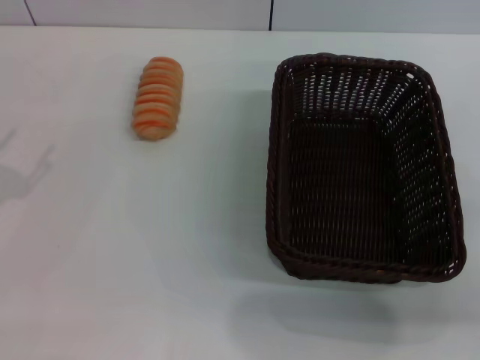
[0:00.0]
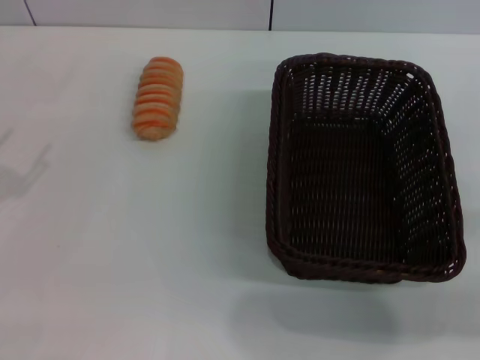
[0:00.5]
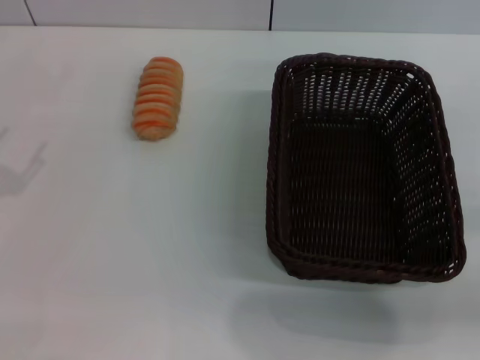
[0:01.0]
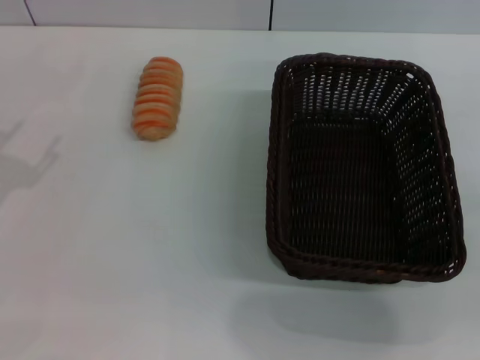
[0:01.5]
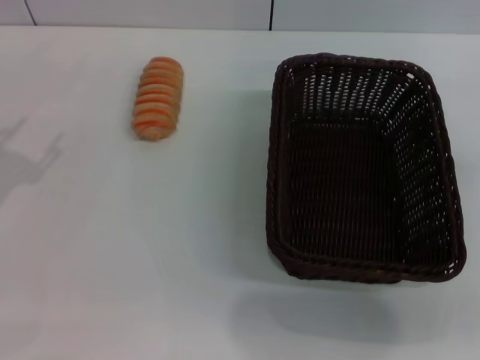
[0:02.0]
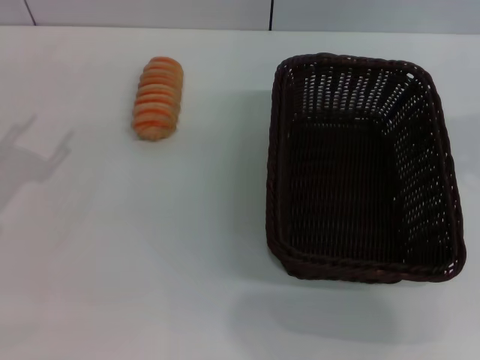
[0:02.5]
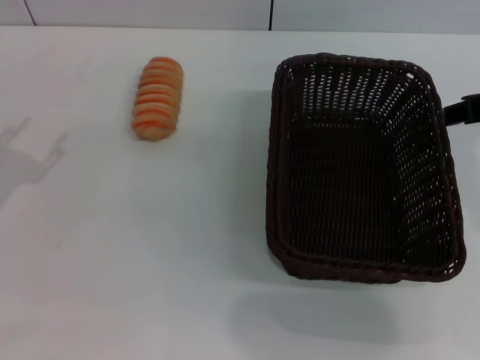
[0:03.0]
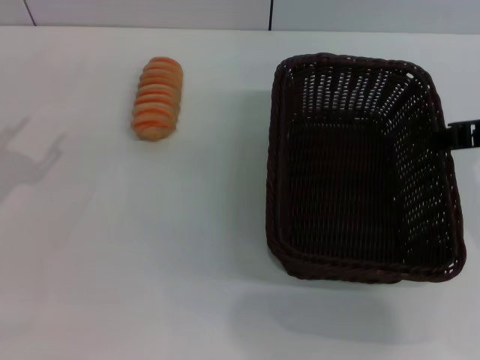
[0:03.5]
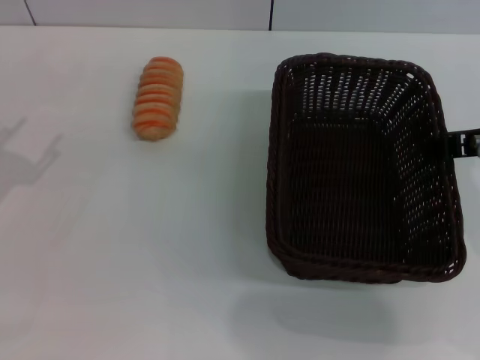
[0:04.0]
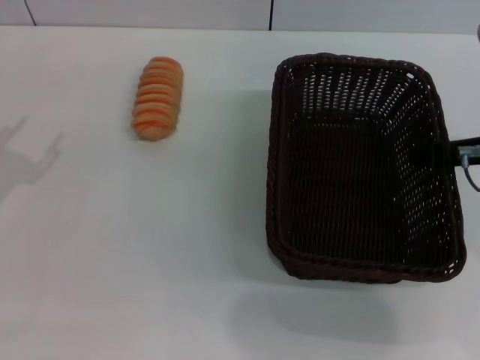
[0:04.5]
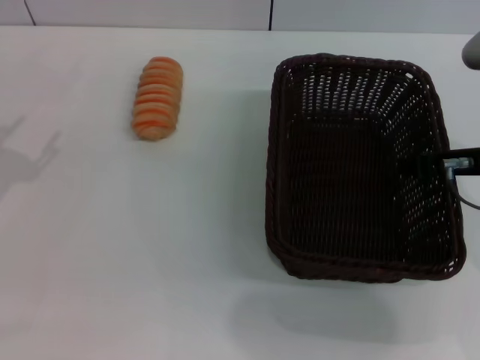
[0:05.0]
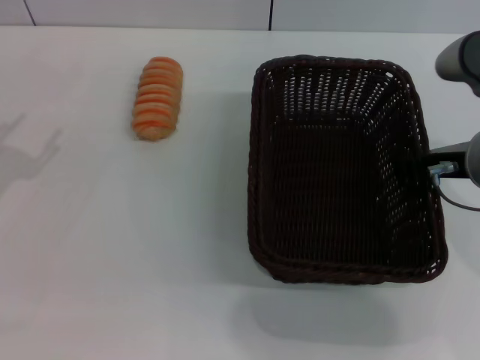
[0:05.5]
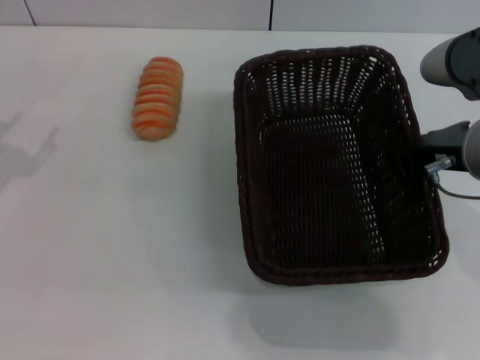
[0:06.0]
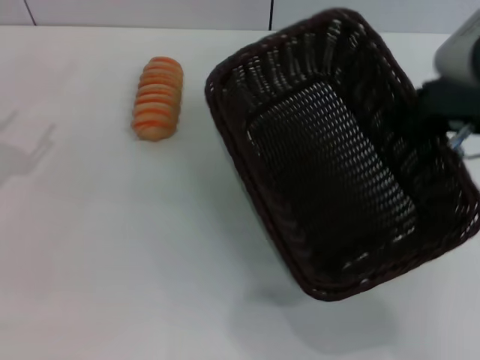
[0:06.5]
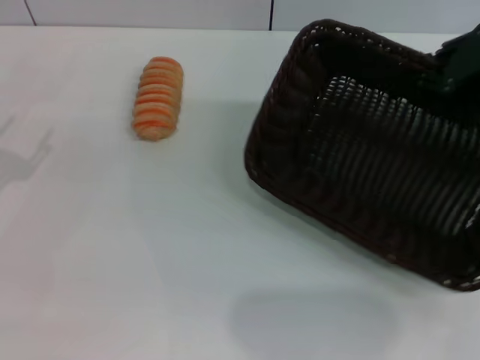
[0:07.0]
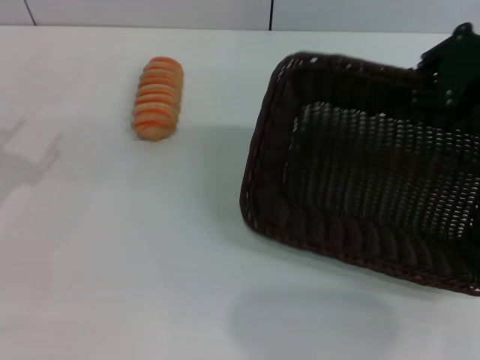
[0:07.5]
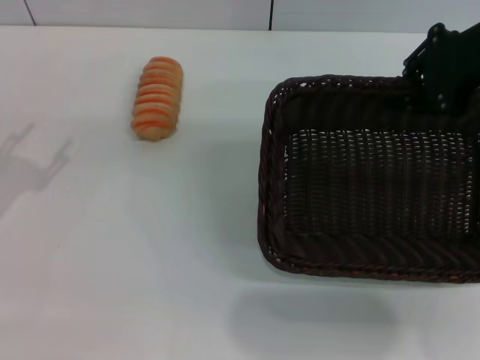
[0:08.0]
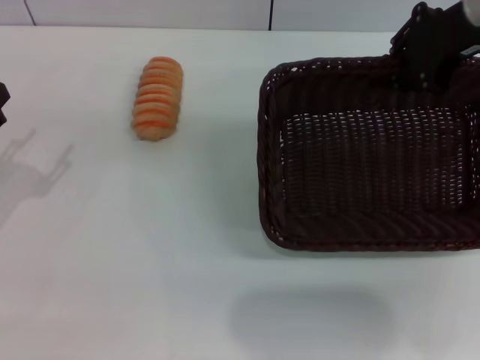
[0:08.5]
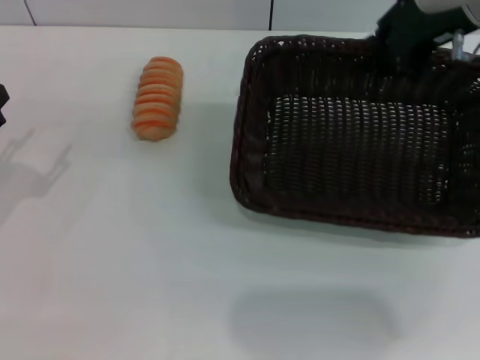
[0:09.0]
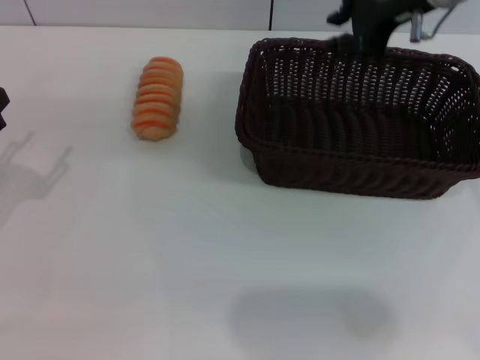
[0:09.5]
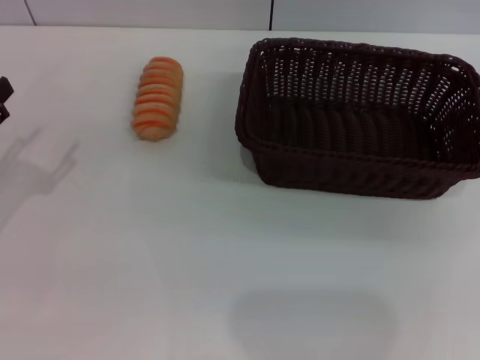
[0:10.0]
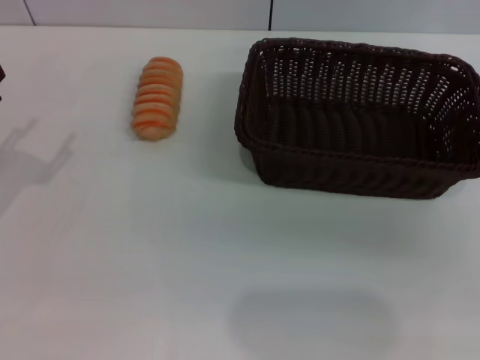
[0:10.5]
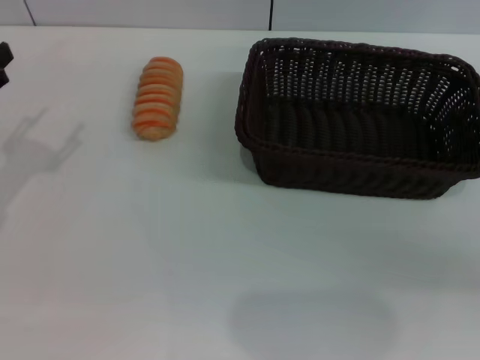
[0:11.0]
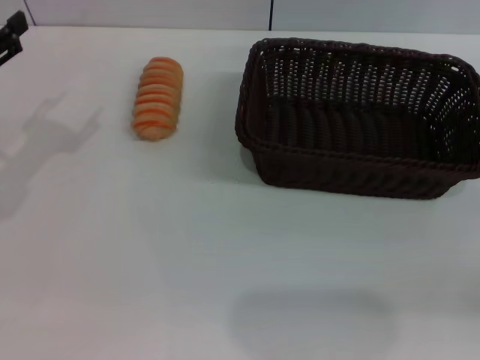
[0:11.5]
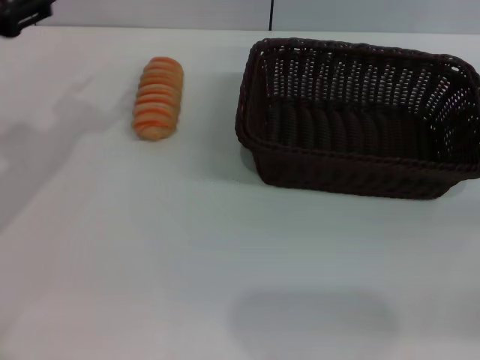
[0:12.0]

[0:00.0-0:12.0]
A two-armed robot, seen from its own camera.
Step, 0:00.0 to 0:06.0: Pick up the dark basket with the right gripper.
Step, 0:06.5 to 0:09.0: Place the dark basket in the center of view with the right gripper.
0:02.0 to 0:04.0: The right gripper shifts some 15 cm to the left.
0:04.0 to 0:06.0: The right gripper closes up.
0:06.0 to 0:08.0: The right gripper heads forward and upward, covering approximately 10 cm.
0:08.0 to 0:10.0: The right gripper shifts some 10 cm upward, and moves approximately 10 cm to the left and comes back.
0:10.0 to 0:12.0: The right gripper is displaced backward, to the right and downward by roughly 30 cm. The left gripper travels upward, forward and to the right by some 15 cm.

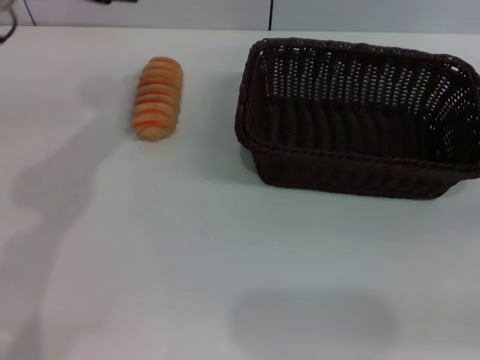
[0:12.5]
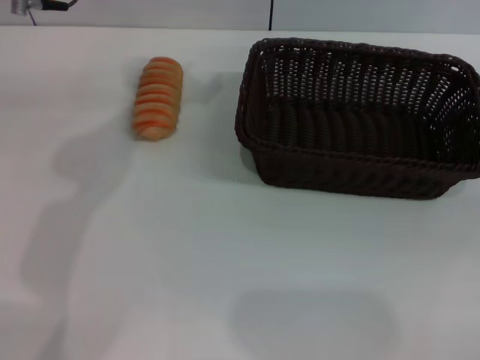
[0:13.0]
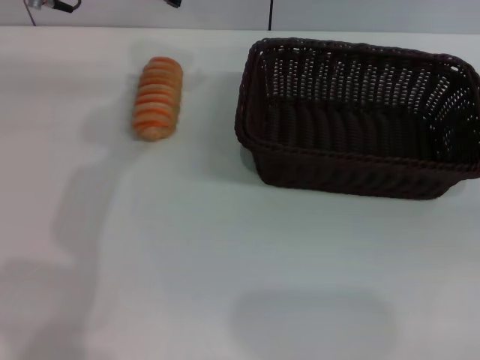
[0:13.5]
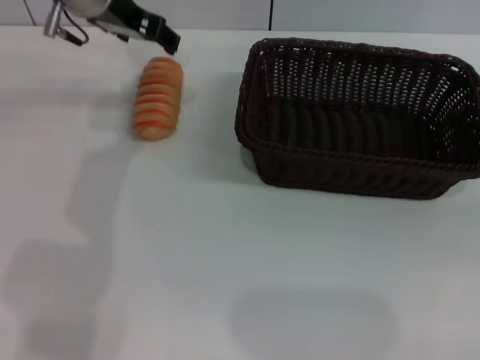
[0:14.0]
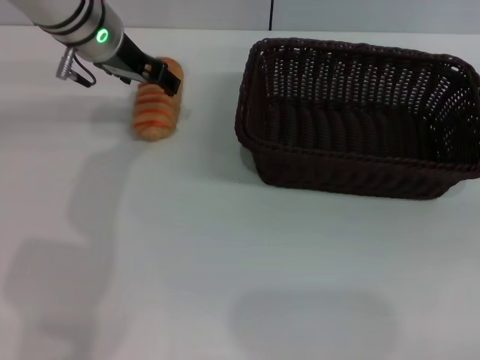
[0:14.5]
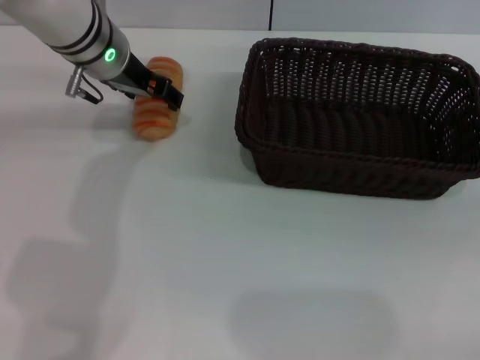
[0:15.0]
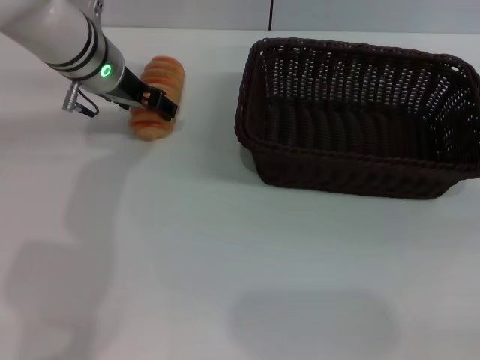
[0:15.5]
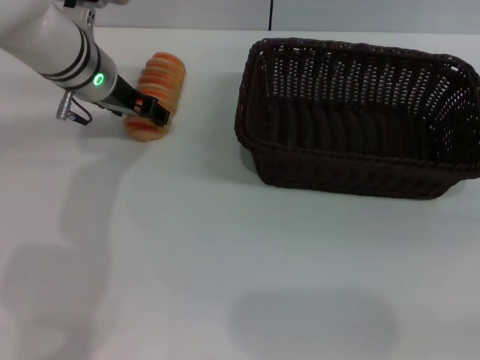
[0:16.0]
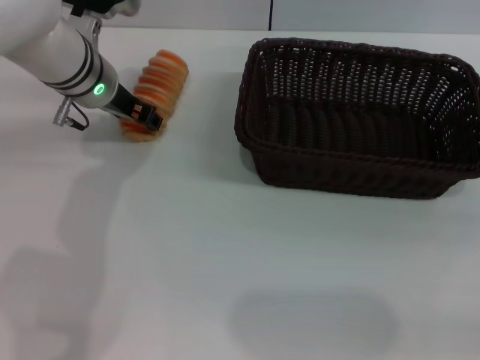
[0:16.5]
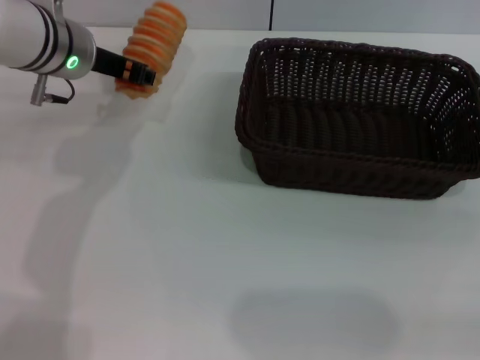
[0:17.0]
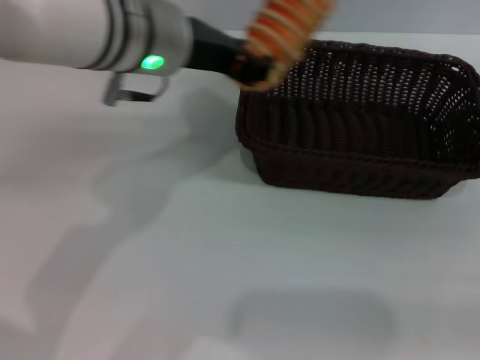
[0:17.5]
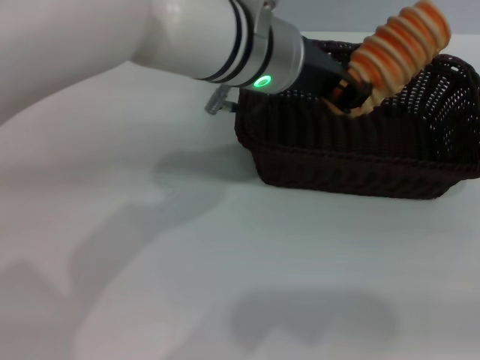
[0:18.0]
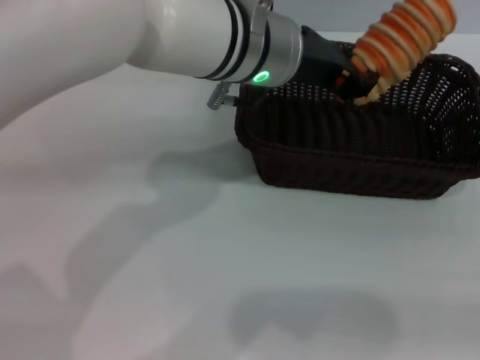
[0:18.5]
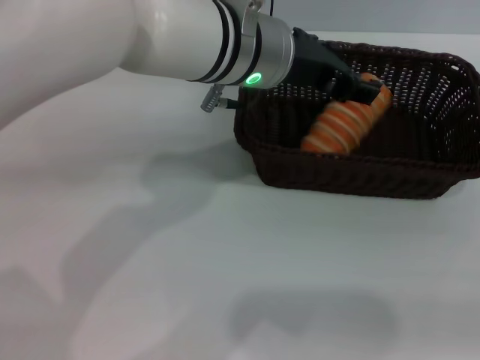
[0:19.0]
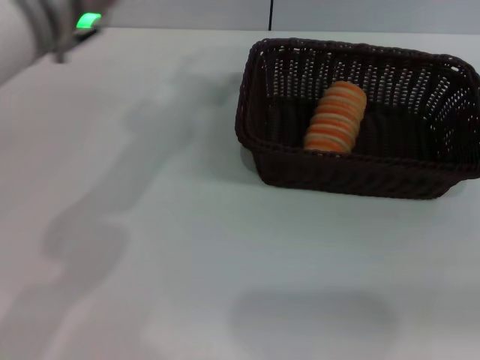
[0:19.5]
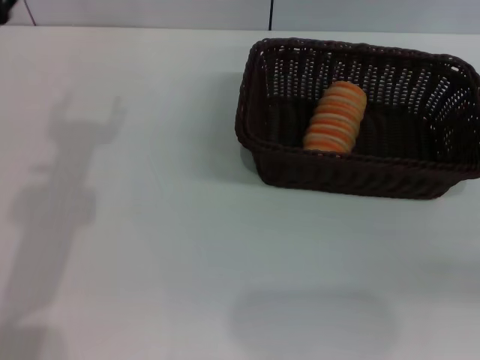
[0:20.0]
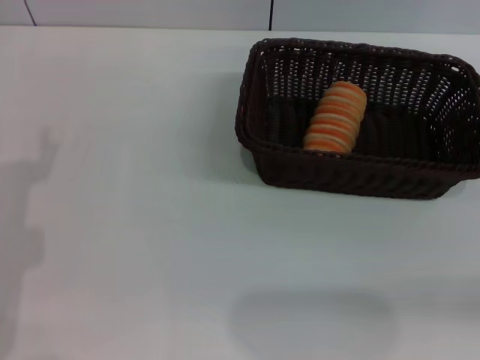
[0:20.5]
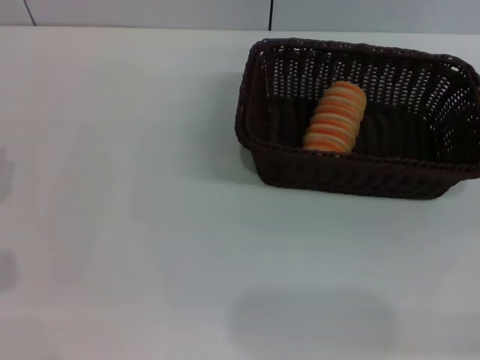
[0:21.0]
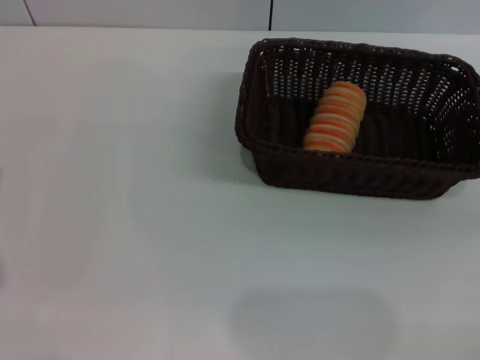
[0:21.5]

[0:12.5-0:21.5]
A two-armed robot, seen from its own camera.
Step, 0:12.5 to 0:16.5: Pick up the long bread with the left gripper.
Step, 0:17.0 to 0:19.0: Place the long bread into the dark basket with the left gripper.
0:12.5 to 0:14.5: The left gripper shifts roughly 15 cm forward and downward.
0:14.5 to 0:17.0: The left gripper closes up.
0:17.0 to 0:19.5: The left gripper heads backward and upward, covering some 10 cm, moves roughly 15 cm to the right and comes back, and opens its fingers.
0:19.5 to 0:21.5: The left gripper shifts approximately 25 cm backward, to the left and downward.
